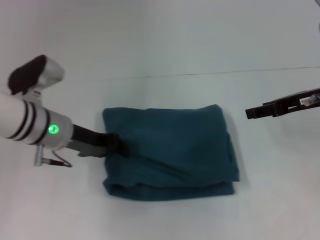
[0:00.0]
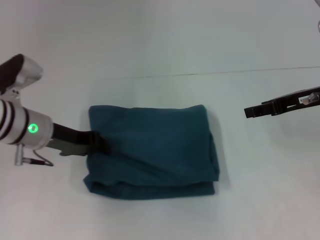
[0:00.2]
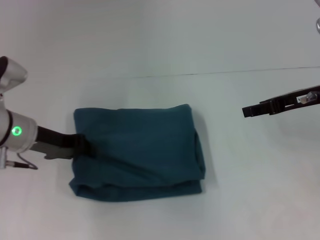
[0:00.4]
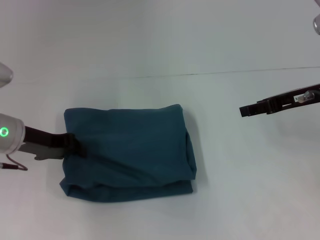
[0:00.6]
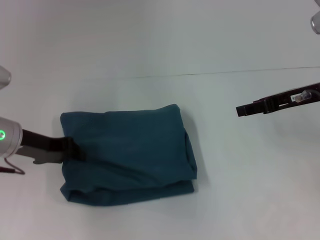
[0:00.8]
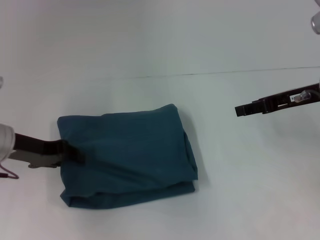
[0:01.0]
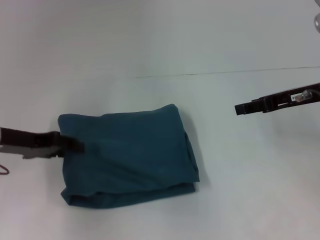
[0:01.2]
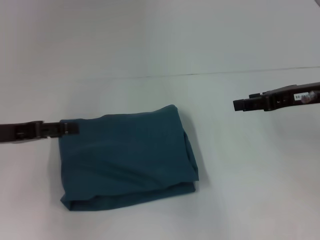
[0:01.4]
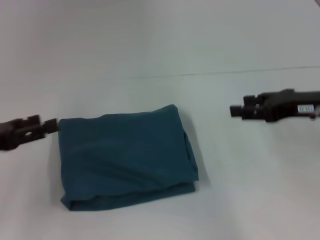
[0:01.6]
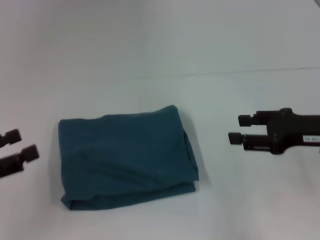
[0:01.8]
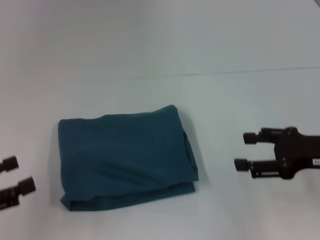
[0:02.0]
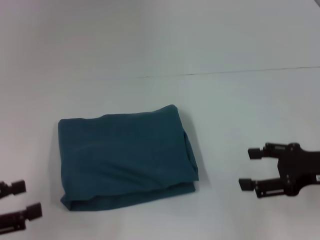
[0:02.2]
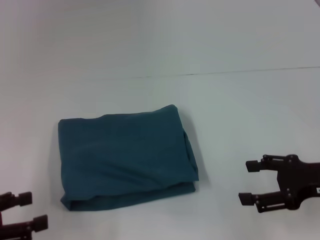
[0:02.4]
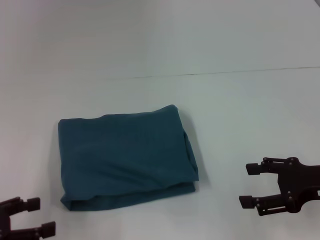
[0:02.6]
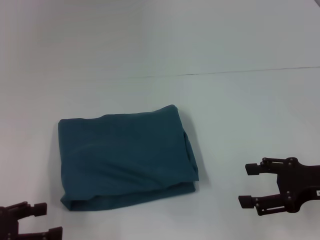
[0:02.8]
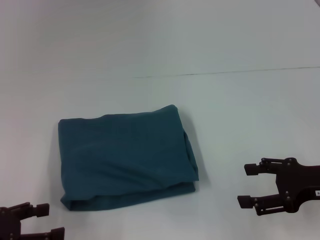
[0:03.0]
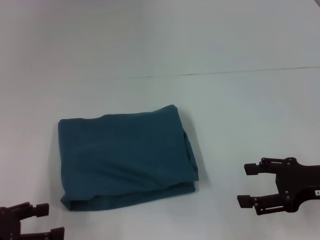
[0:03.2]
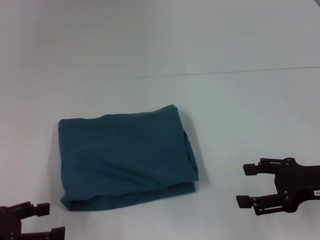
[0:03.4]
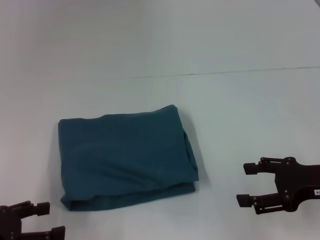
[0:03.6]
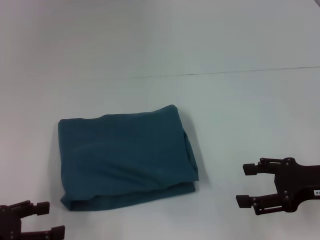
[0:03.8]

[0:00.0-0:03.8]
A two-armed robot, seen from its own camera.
0:00.0 to 0:01.2: The left gripper heads to the left, covering about 10 cm.
0:01.2 to 0:02.6: The left gripper goes approximately 15 cm backward and to the left, and opens its fingers. The right gripper travels backward and downward by some 10 cm.
0:02.6 to 0:03.8: Both grippers stay put.

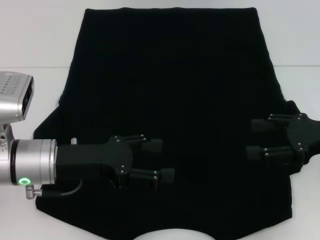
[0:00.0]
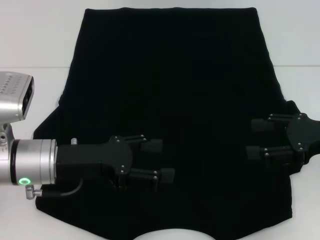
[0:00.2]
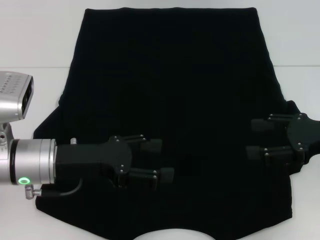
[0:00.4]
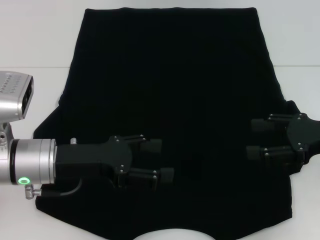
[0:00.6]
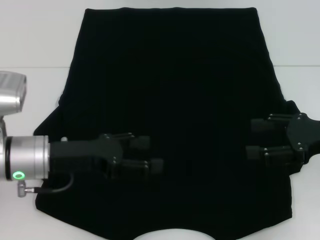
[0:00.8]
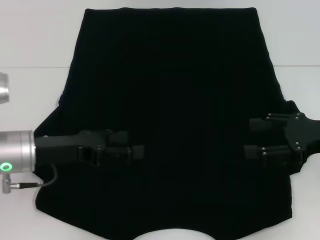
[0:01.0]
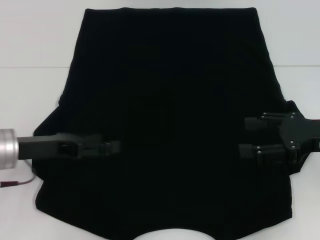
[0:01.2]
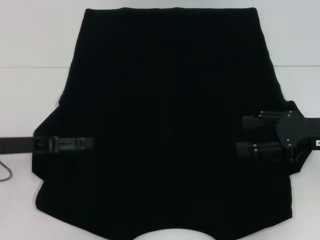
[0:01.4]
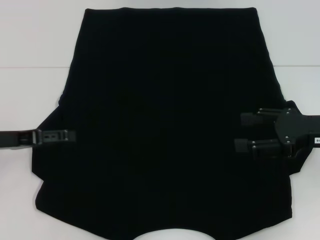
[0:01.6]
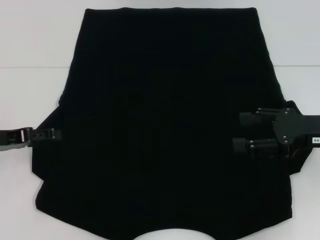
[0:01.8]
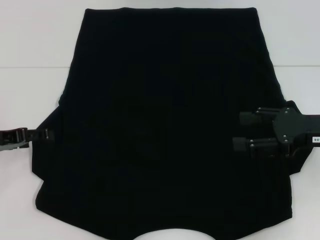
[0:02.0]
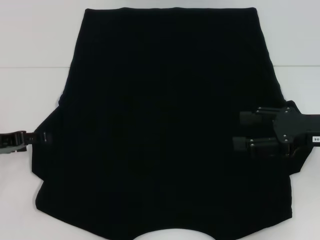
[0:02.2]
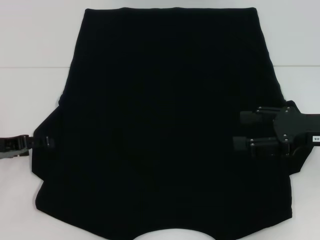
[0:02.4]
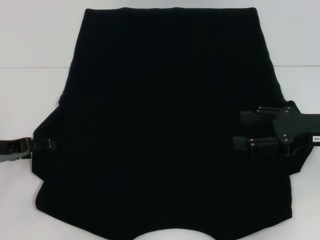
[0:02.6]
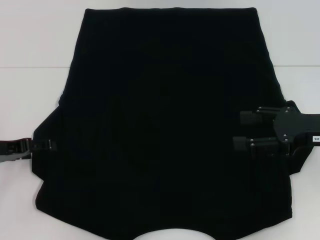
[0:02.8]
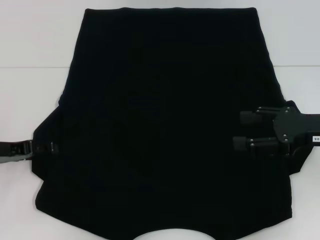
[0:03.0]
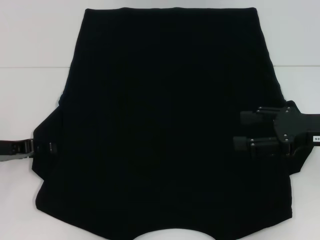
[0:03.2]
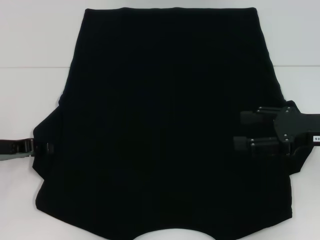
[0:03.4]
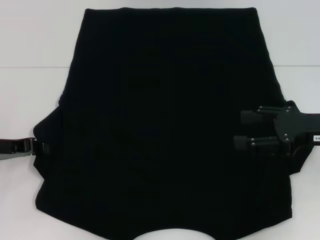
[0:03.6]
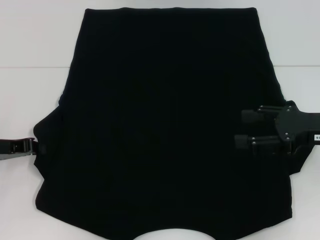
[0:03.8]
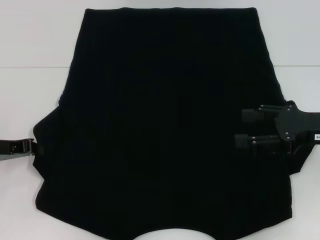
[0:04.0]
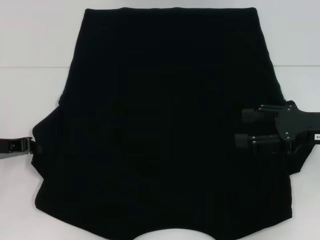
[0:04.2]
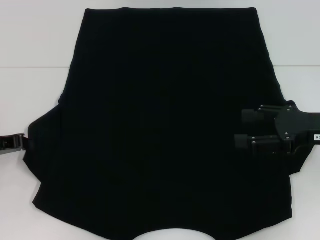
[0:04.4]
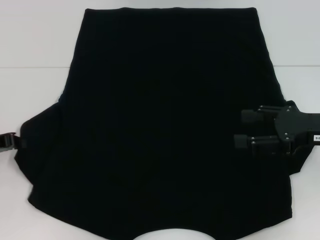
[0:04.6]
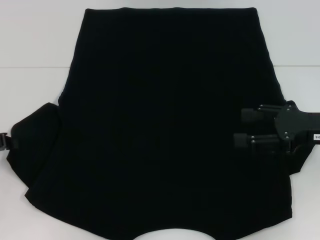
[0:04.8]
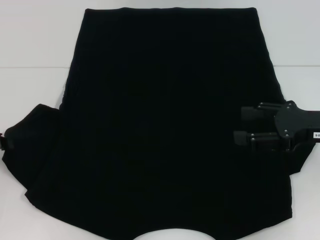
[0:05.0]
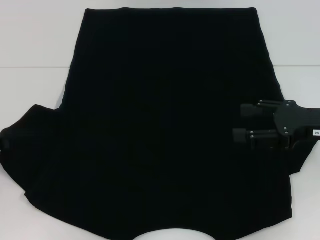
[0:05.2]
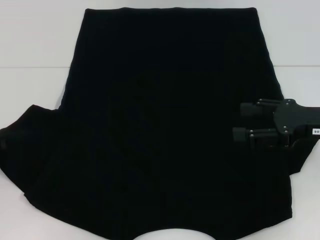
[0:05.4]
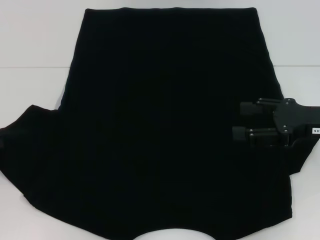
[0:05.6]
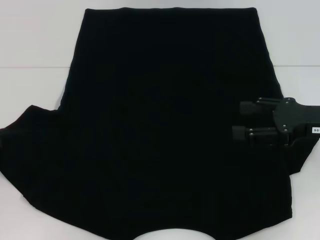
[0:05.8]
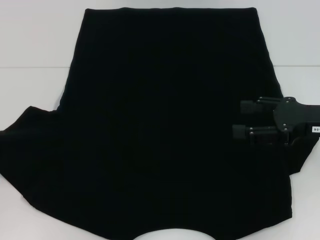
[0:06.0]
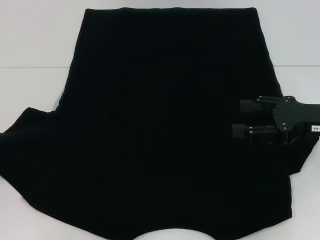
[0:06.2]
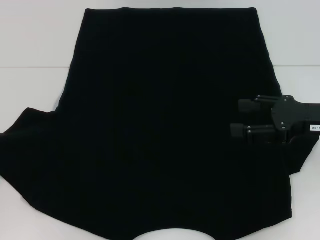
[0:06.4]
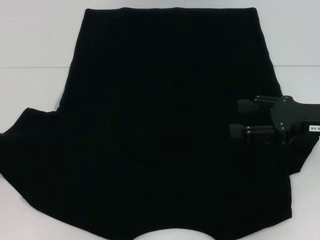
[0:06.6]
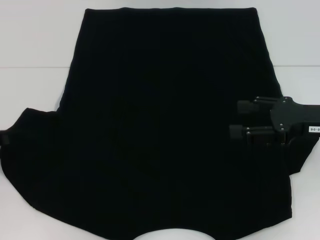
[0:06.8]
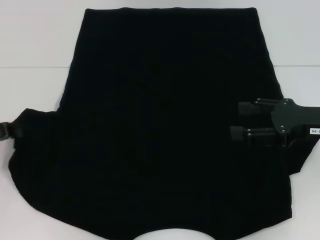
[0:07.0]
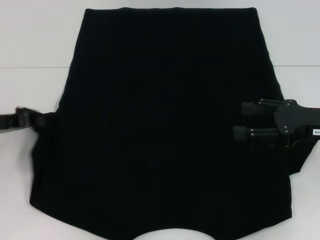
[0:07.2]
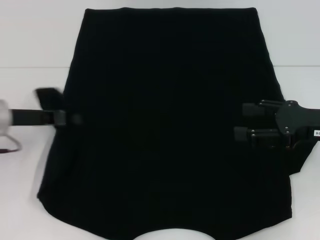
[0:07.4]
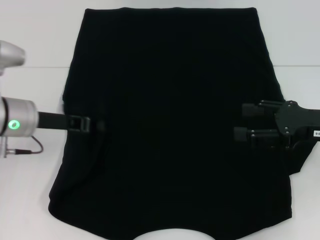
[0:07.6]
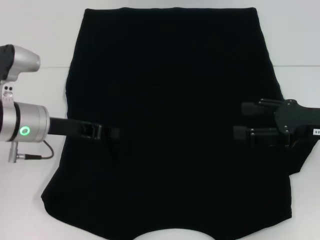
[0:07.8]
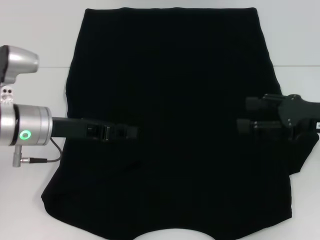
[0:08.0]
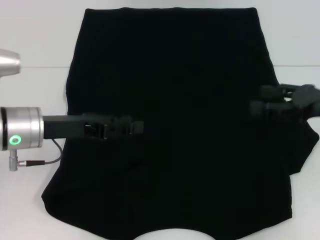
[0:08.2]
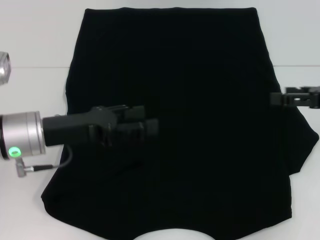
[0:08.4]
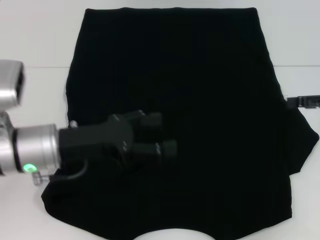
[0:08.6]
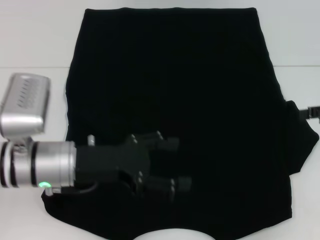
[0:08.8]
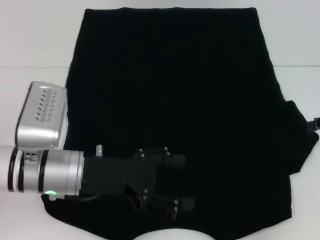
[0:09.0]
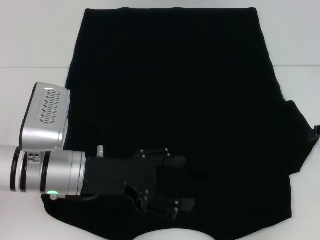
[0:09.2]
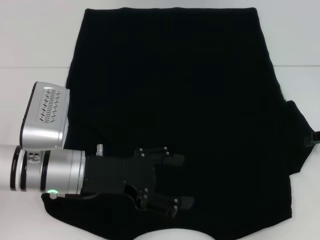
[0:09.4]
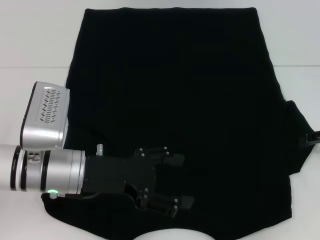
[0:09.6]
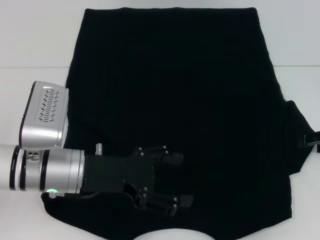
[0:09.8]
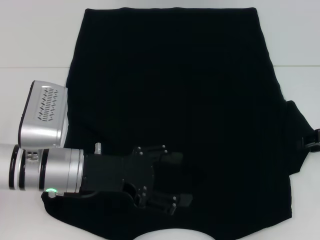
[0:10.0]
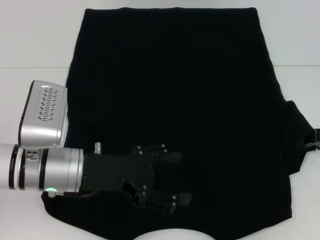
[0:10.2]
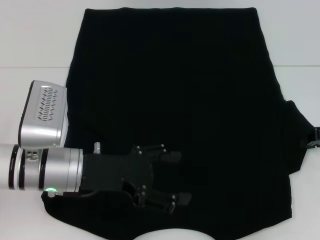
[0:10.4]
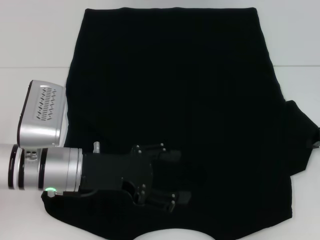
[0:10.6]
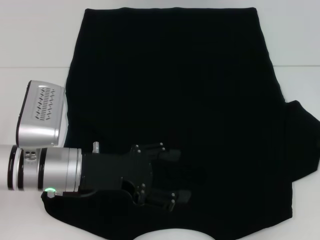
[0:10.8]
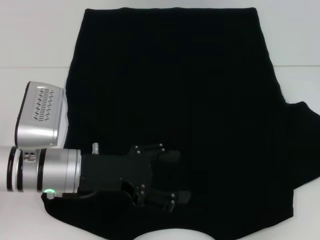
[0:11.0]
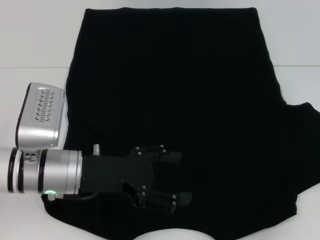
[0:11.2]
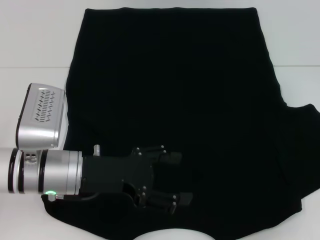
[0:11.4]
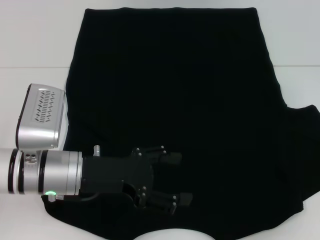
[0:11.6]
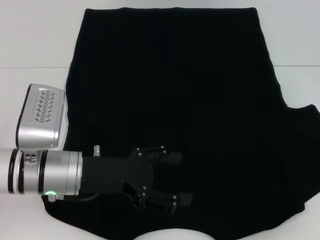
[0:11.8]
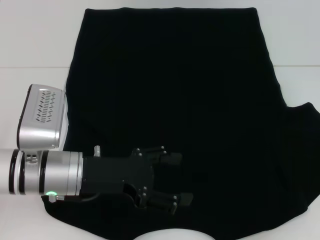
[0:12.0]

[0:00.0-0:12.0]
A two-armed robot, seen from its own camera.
Step, 0:00.0 to 0:08.0: Fold the bottom left sleeve with your left hand.
0:00.0 to 0:01.6: The left gripper is displaced to the left by approximately 10 cm.
0:01.6 to 0:03.0: The grippers stay close to where they were, moving slightly.
0:03.0 to 0:04.4: The left gripper closes up.
0:04.4 to 0:06.0: The left gripper ends up roughly 5 cm from where it was.
0:06.0 to 0:07.6: The left gripper travels to the right and forward by roughly 15 cm.
0:07.6 to 0:09.0: The left gripper shifts about 10 cm to the right and backward, and opens up. Meanwhile the right gripper travels to the right by some 10 cm.
0:09.0 to 0:10.4: The right gripper changes place by approximately 5 cm, and closes up.
0:10.4 to 0:12.0: The right gripper goes roughly 5 cm to the right.

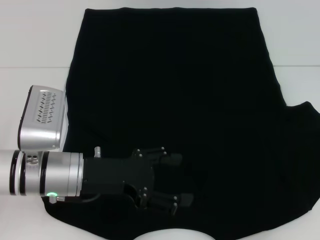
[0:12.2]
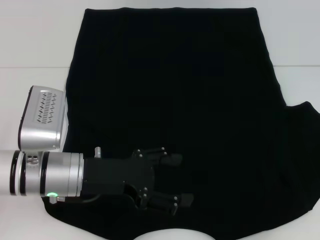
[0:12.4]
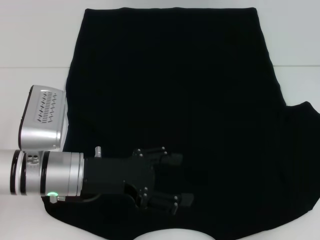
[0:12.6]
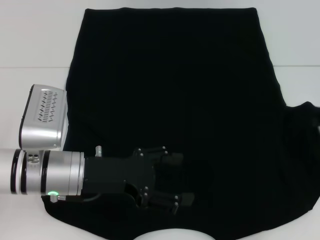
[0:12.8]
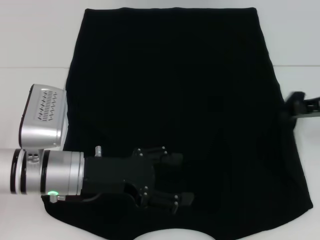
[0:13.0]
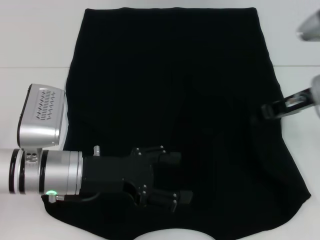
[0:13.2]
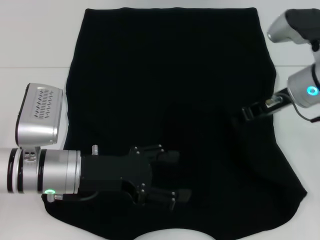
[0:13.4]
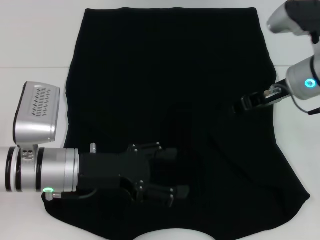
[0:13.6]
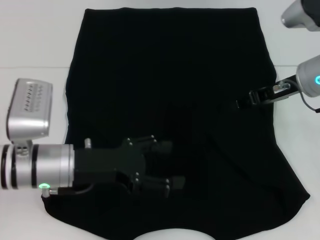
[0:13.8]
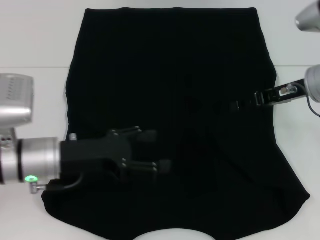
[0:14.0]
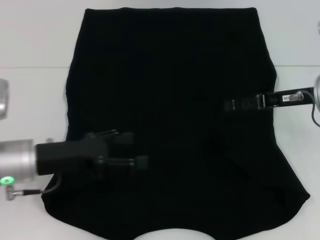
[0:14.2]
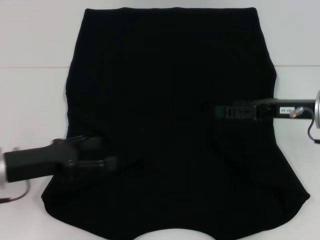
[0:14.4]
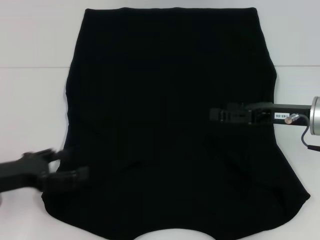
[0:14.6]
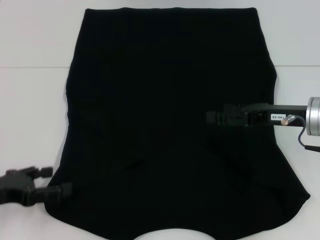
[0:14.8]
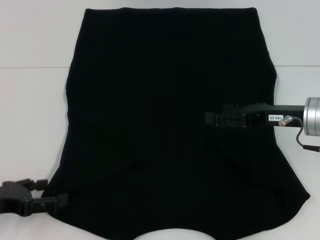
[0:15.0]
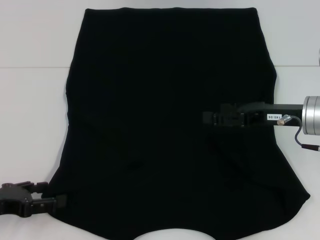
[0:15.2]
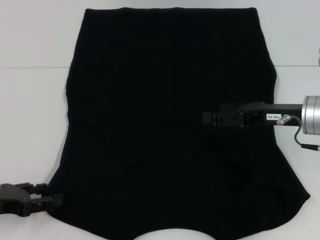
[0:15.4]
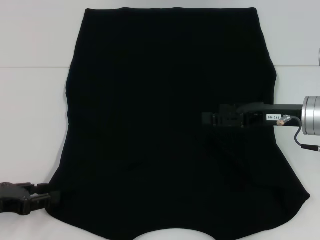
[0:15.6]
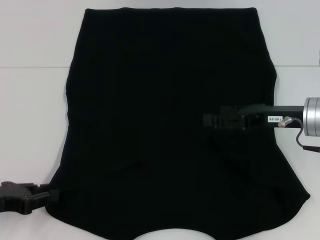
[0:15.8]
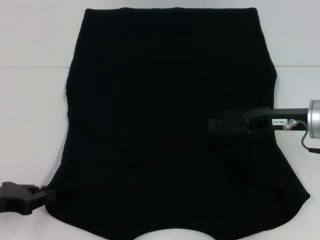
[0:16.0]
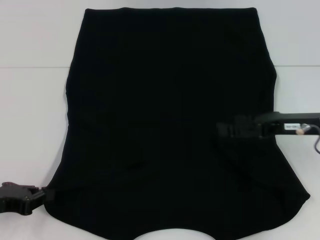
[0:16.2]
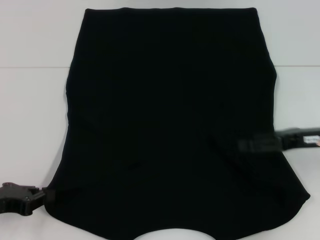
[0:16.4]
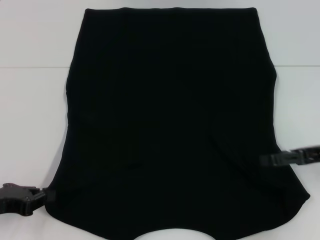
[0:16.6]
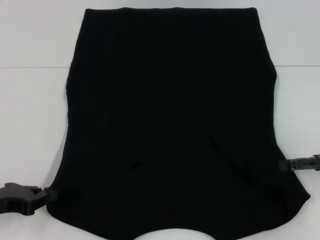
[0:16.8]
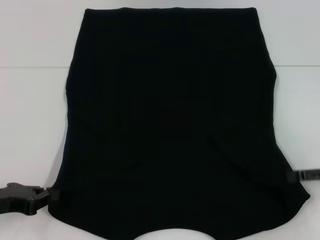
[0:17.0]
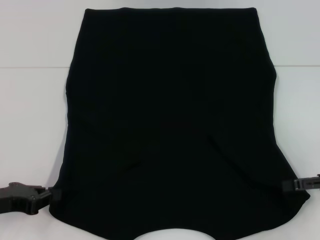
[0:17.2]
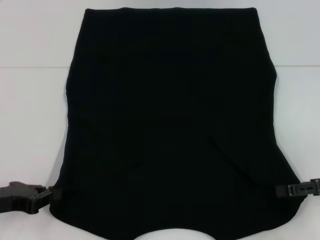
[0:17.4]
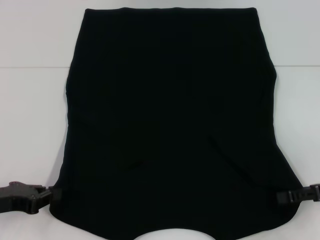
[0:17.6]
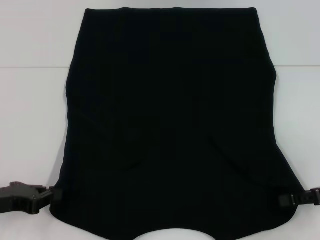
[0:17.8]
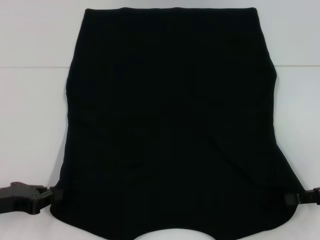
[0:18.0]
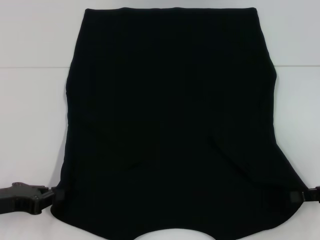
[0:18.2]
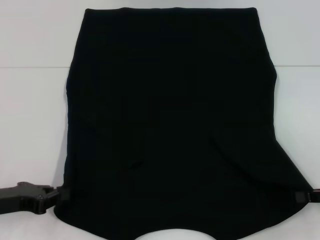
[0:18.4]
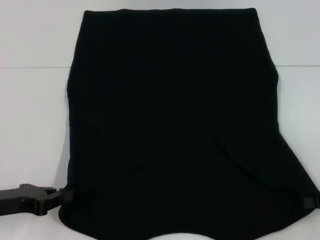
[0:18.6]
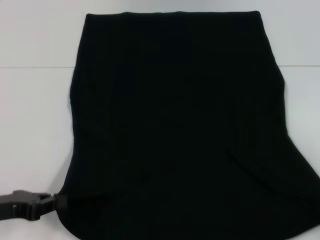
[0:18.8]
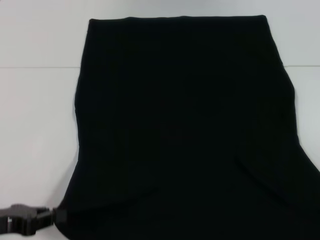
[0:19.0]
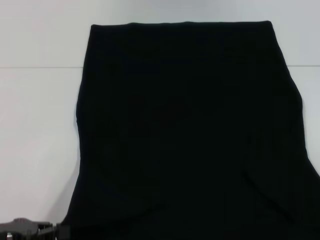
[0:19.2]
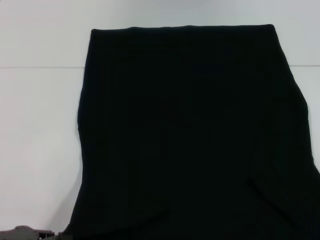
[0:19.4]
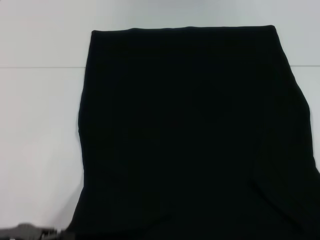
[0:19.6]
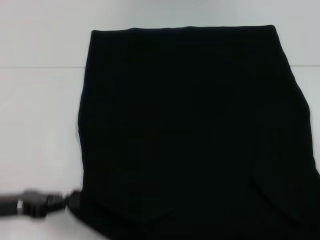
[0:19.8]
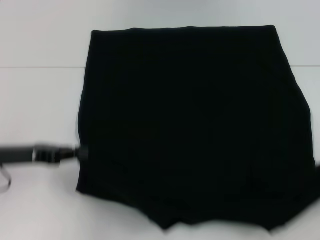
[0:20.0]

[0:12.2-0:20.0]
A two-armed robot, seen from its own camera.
Step, 0:13.6 to 0:16.6: Grab the bottom left corner with your left hand.
Step, 0:16.8 to 0:18.0: Grab the bottom right corner with your right hand.
0:12.2 to 0:13.8: The right gripper heads to the left, covering approximately 15 cm.
0:13.8 to 0:15.4: The right gripper travels backward by roughly 5 cm, and opens its fingers; the left gripper goes approximately 15 cm to the left.
0:15.4 to 0:16.8: The left gripper closes its fingers. The right gripper moves to the right, about 10 cm.
0:16.8 to 0:18.4: The right gripper closes its fingers.
0:18.4 to 0:20.0: The left gripper ends up some 5 cm from where it was, while the right gripper goes roughly 5 cm to the right, and travels backward and back again, approximately 10 cm each way.
